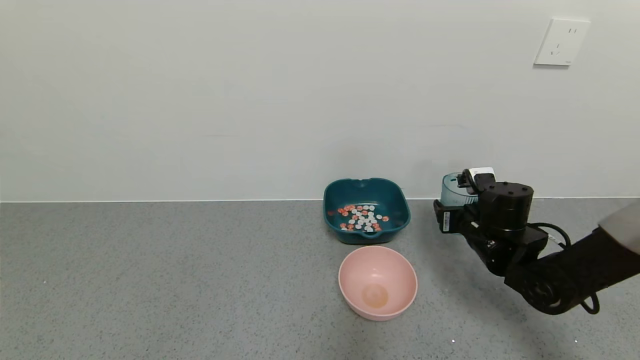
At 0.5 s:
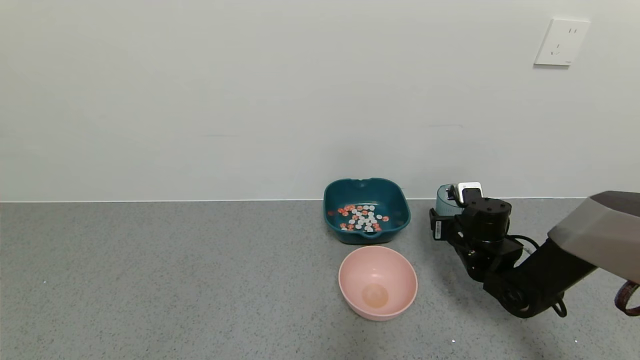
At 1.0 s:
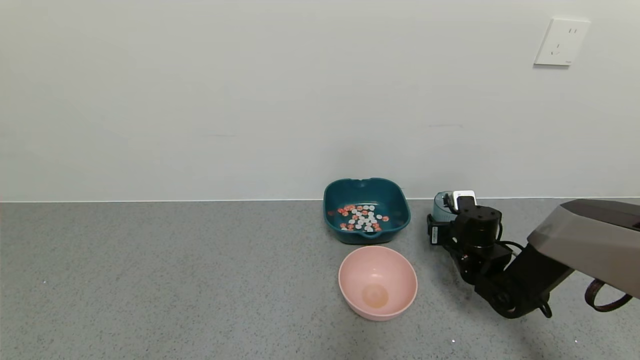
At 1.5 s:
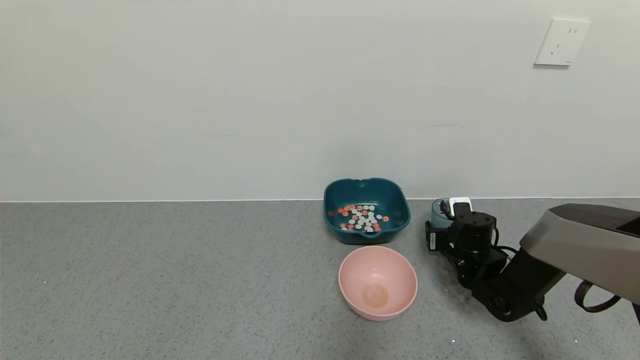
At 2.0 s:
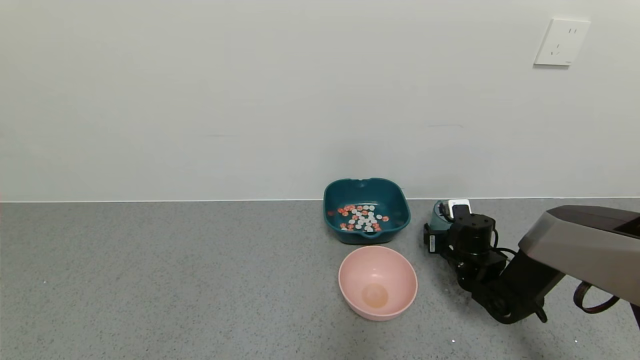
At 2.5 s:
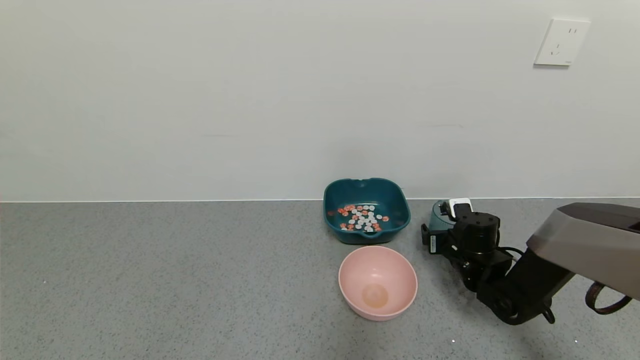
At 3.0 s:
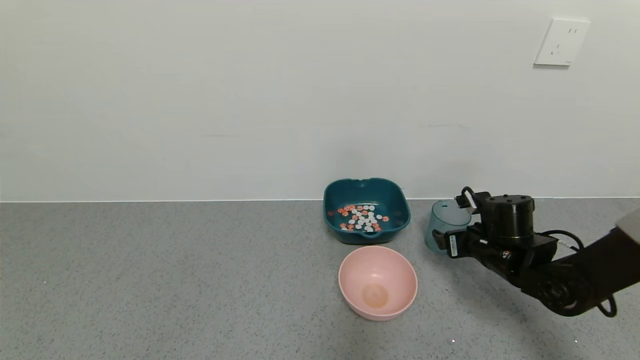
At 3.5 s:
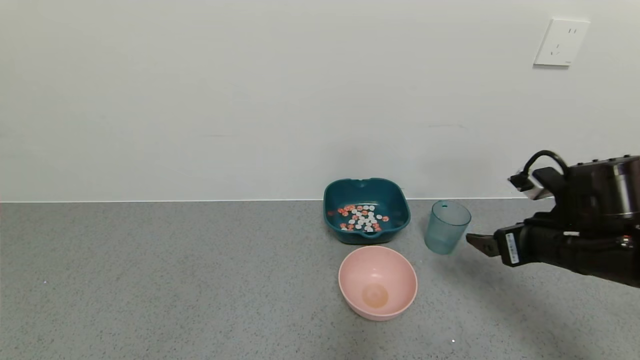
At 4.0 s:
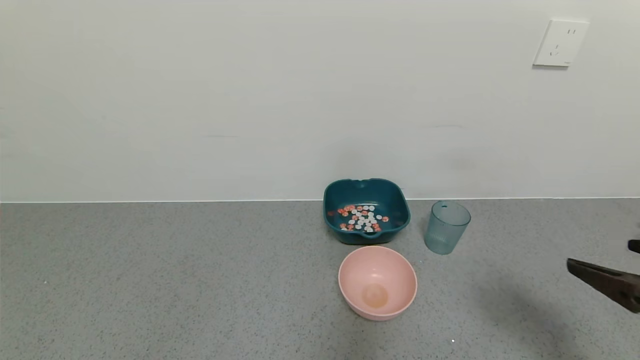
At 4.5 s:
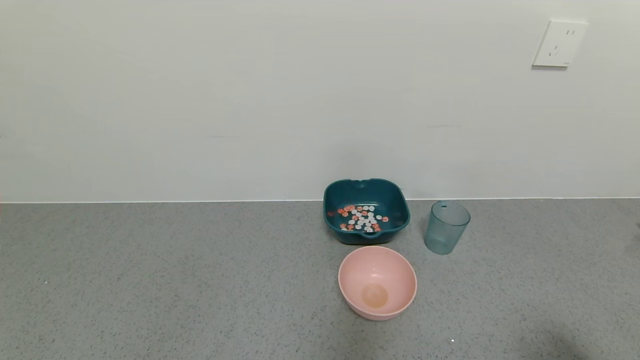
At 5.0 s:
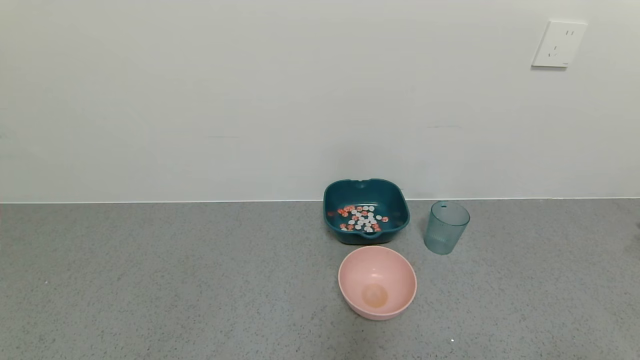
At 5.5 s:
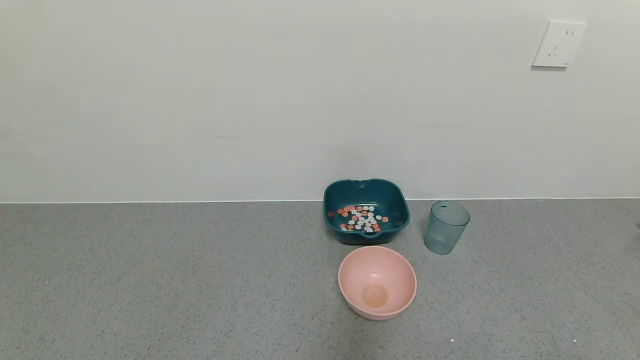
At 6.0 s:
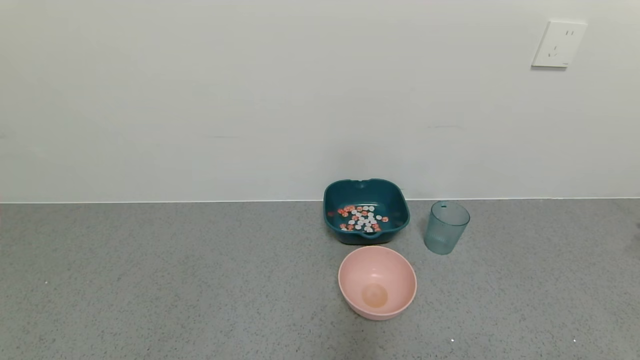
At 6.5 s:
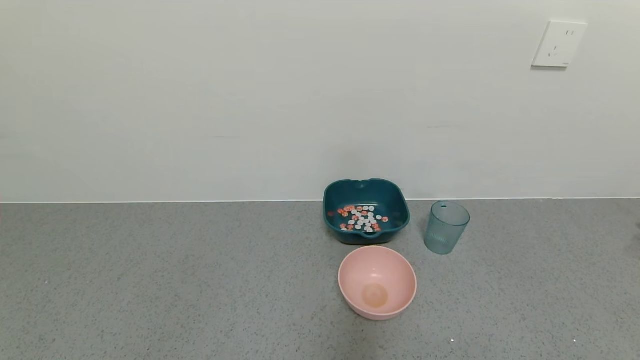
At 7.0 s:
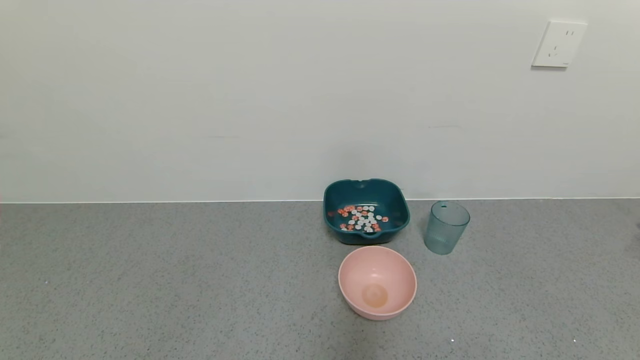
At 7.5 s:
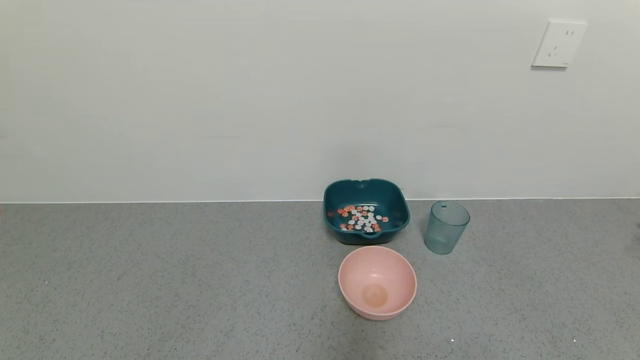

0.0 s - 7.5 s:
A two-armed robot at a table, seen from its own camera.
Task of the whole recording: use a gripper to pick up the cup and pour the solid into a bowl or tray.
Step, 0.0 s - 3.0 s: Place the glass cup with the right gripper.
0.0 s - 2.0 s: The right gripper travels downward by roughly 10 cm, and opens.
2.0 s - 4.0 s: The right gripper heads backward and upward, covering some 35 cm, and opens its fingers.
4.0 s - 5.5 s: The right gripper heads backward, covering about 15 cm.
